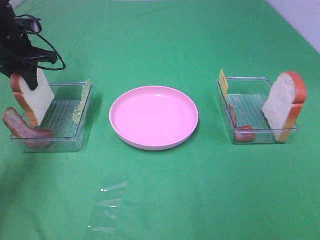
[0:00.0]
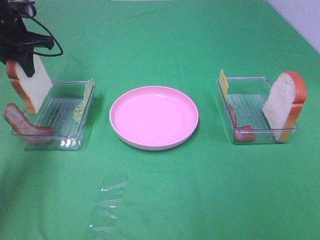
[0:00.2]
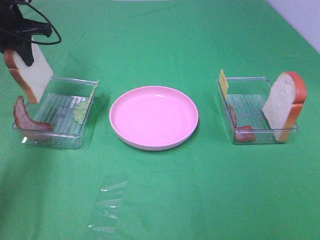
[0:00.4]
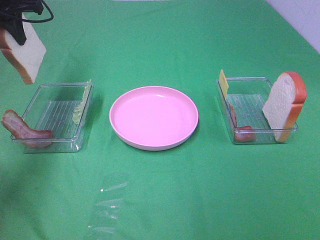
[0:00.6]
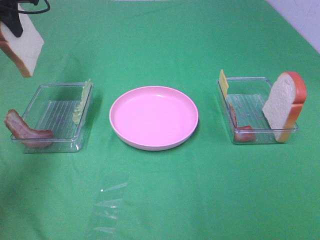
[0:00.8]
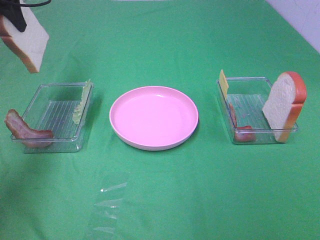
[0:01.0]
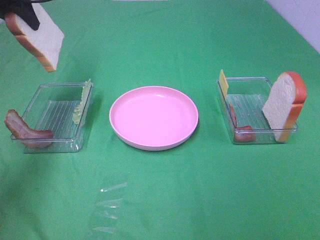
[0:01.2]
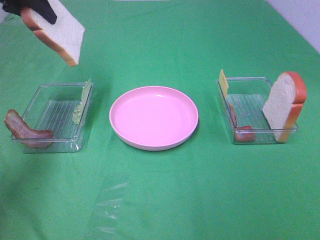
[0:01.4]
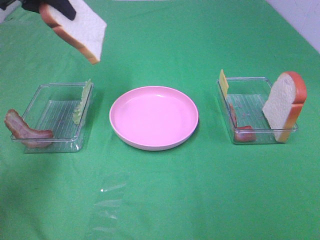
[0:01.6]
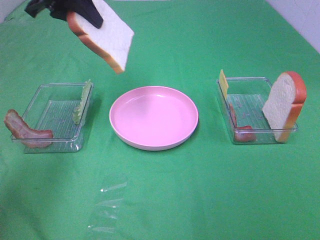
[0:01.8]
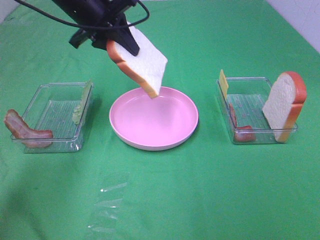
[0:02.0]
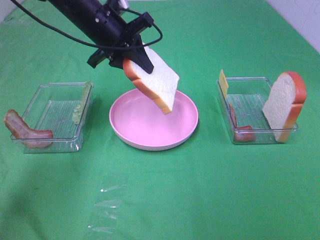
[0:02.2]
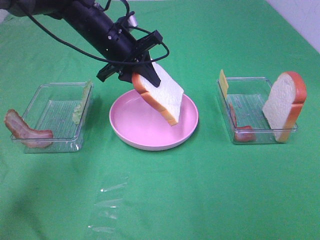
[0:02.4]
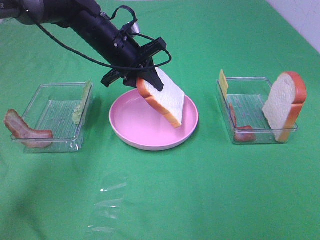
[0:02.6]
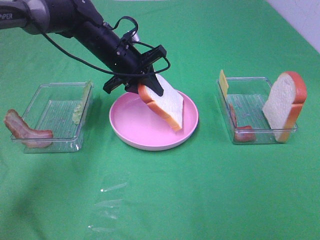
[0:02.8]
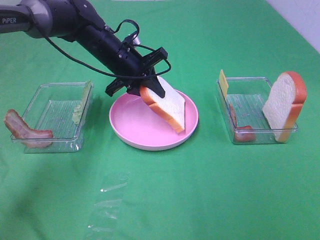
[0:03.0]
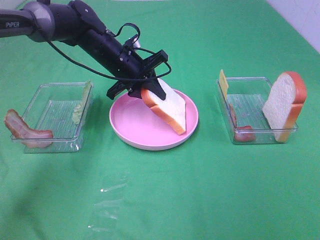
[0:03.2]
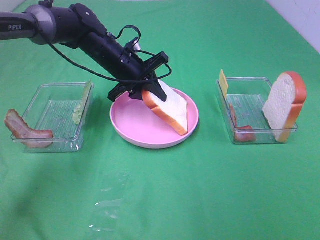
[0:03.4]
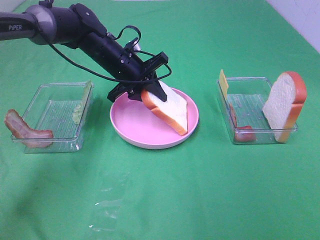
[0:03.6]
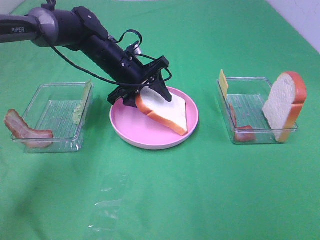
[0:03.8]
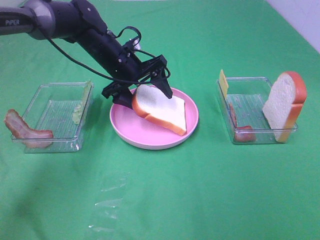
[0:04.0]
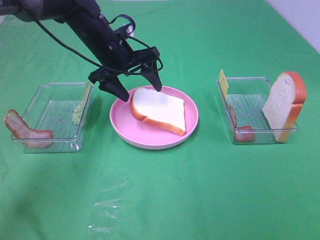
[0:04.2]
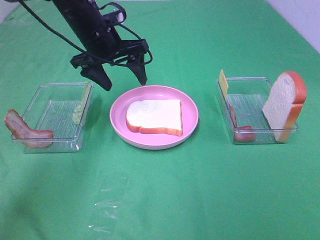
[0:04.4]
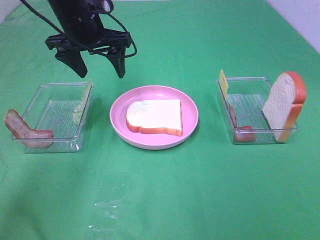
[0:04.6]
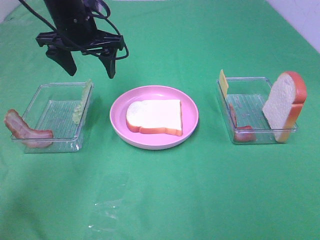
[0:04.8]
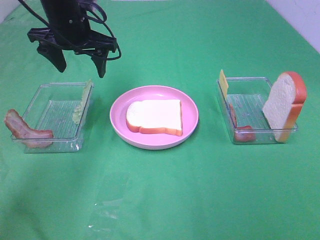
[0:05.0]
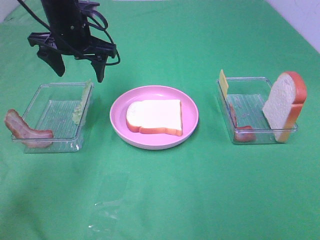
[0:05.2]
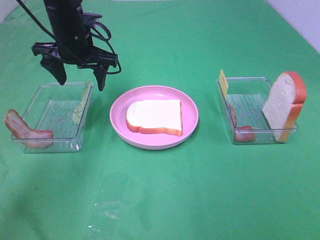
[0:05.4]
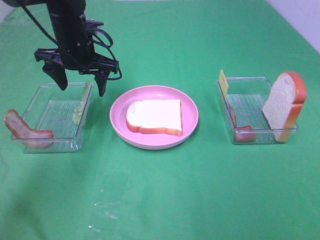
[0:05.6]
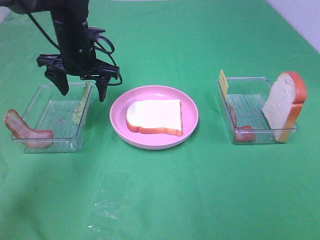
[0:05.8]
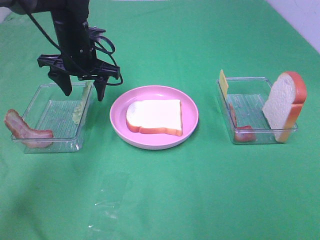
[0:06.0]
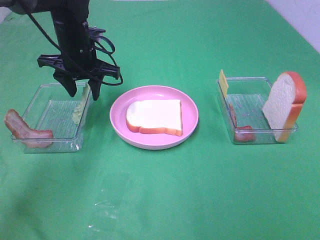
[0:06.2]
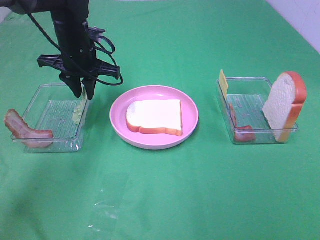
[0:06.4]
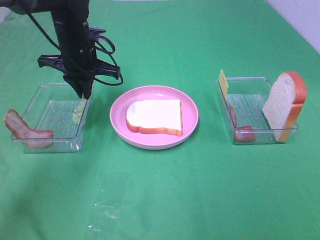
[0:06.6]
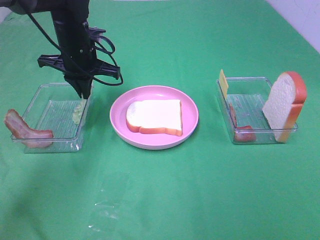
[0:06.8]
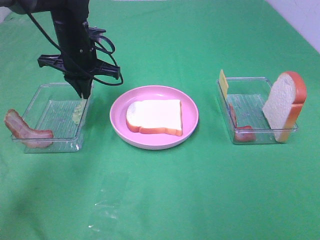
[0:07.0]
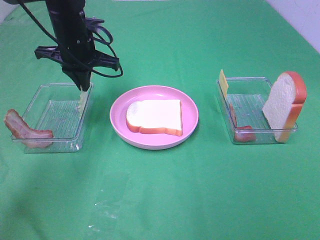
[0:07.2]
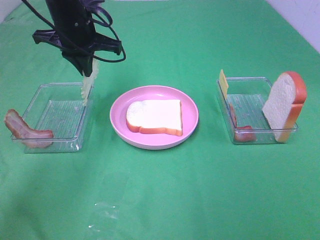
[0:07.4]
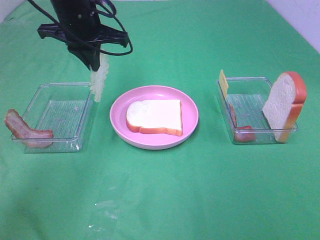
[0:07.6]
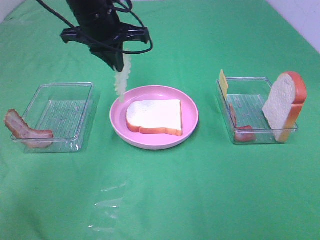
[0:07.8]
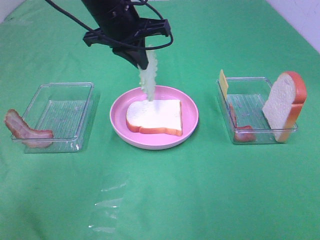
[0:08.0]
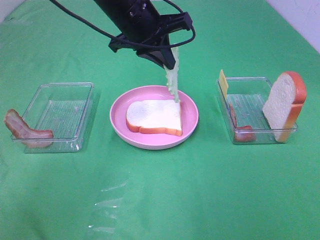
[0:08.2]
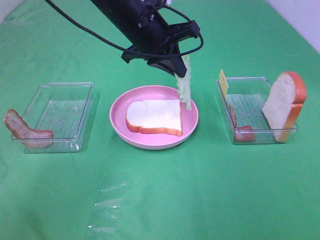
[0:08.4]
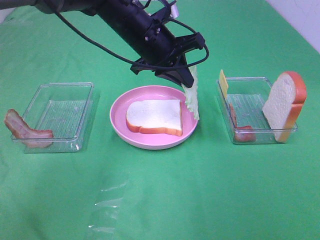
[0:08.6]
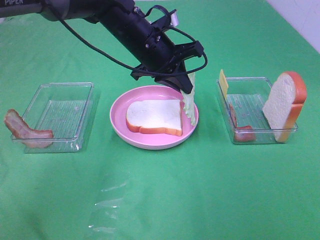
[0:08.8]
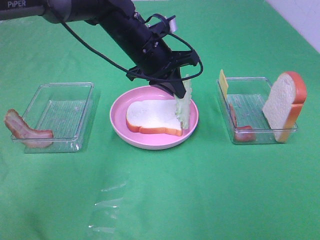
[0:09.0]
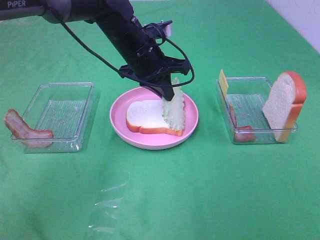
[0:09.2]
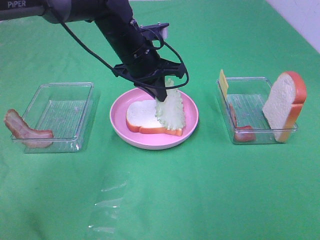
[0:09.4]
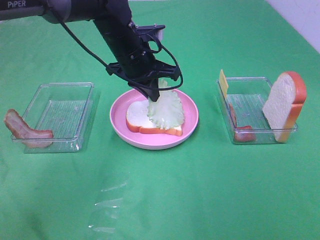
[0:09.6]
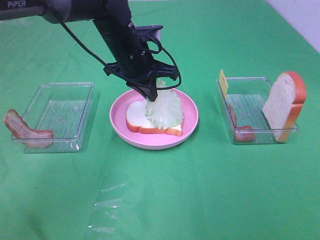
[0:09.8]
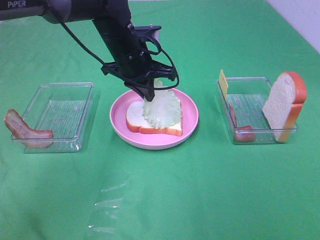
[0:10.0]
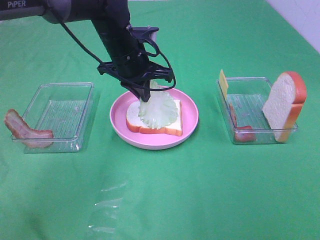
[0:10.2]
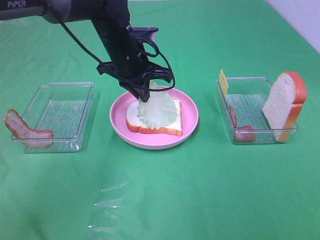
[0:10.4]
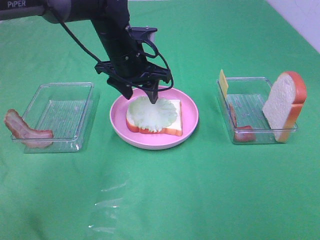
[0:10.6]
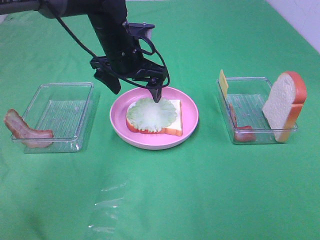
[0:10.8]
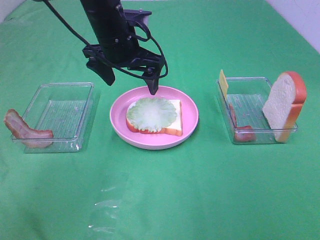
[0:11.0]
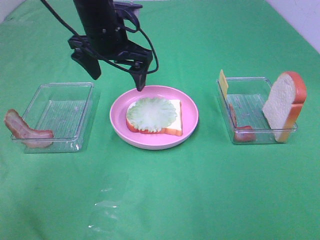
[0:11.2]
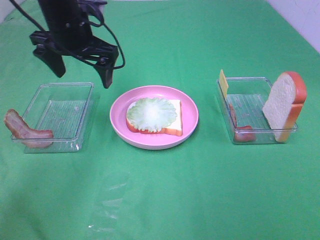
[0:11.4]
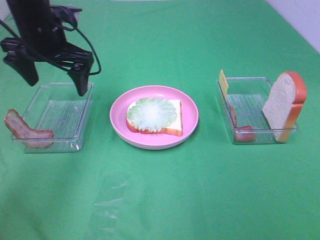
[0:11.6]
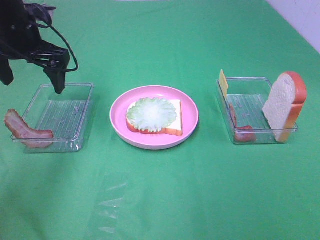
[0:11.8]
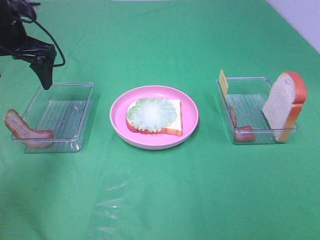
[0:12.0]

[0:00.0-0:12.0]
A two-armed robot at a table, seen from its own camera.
Task of the whole recording: Make sandwiches.
Step, 0:00.0 to 0:04.2: Left hand:place the bread slice on the plate.
Step, 0:04.4 to 0:06.6: Left hand:grab the lettuce slice.
Step, 0:06.8 to 0:10.6: Left hand:place the lettuce slice on the bread slice.
0:00.0 to 0:01.6: The left gripper goes some 15 cm upward and to the right.
0:01.6 to 0:03.0: The left gripper moves downward and to the right, approximately 20 cm.
0:03.0 to 0:04.4: The left gripper goes about 5 cm upward, and opens its fingers.
0:04.4 to 0:06.0: The left gripper changes place by roughly 5 cm.
0:06.0 to 0:07.6: The left gripper heads upward, covering about 5 cm, and closes.
0:07.6 to 0:09.0: The left gripper travels to the right and downward by roughly 10 cm.
0:10.4 to 0:12.0: The left gripper goes some 20 cm to the left, and opens up.

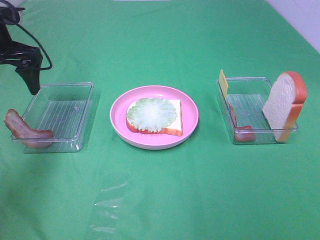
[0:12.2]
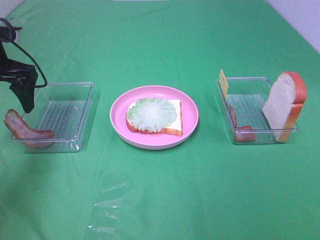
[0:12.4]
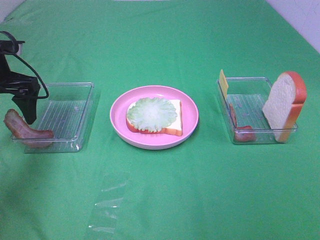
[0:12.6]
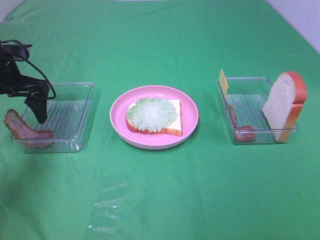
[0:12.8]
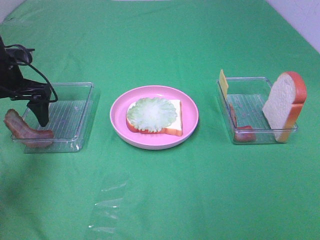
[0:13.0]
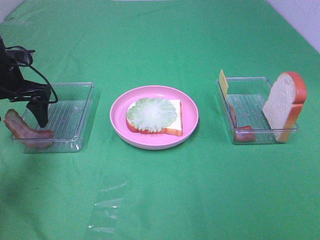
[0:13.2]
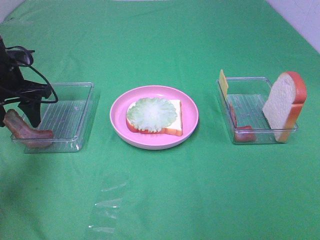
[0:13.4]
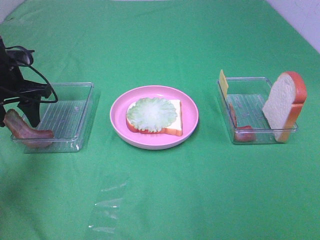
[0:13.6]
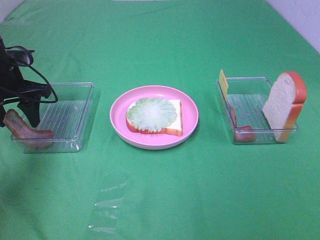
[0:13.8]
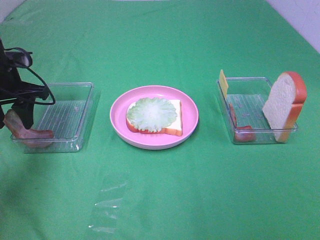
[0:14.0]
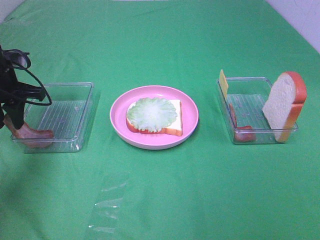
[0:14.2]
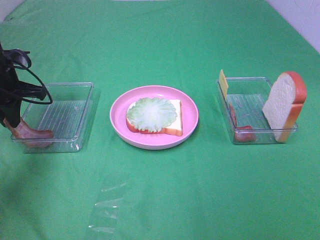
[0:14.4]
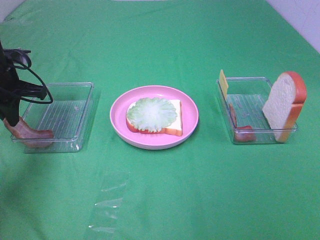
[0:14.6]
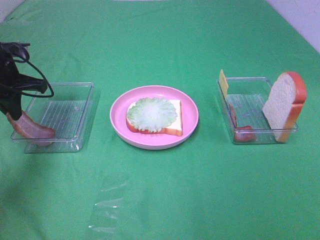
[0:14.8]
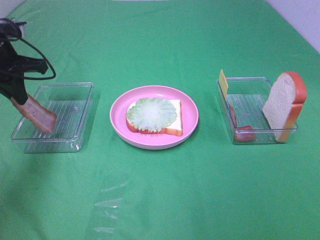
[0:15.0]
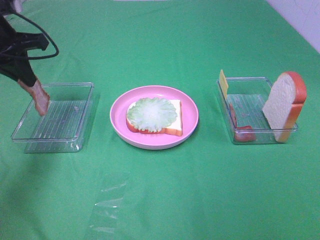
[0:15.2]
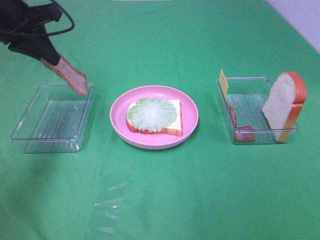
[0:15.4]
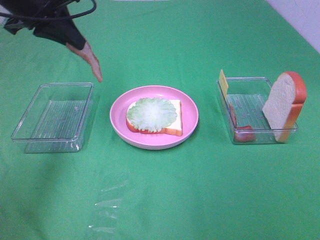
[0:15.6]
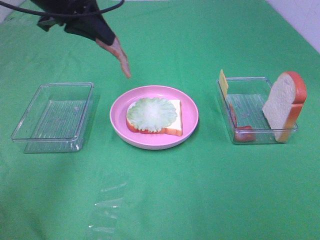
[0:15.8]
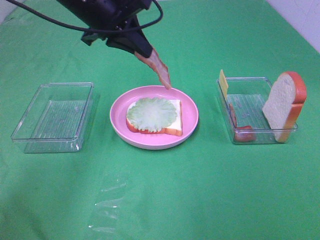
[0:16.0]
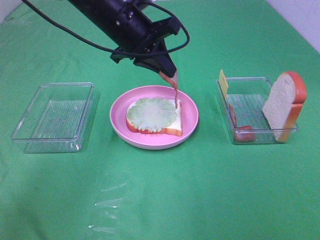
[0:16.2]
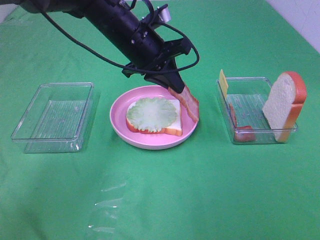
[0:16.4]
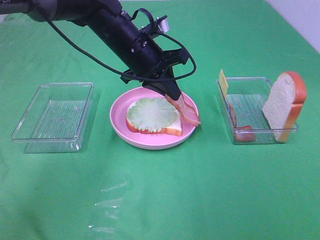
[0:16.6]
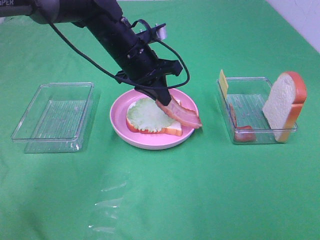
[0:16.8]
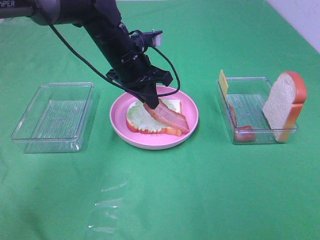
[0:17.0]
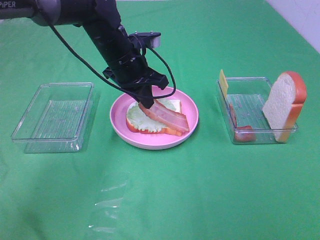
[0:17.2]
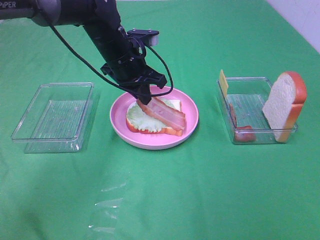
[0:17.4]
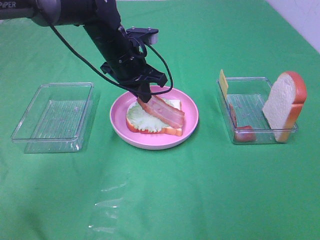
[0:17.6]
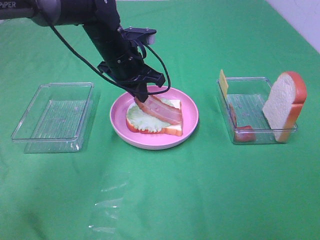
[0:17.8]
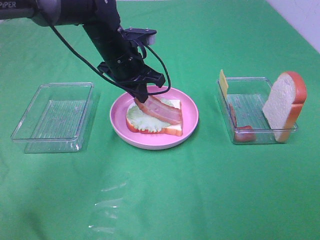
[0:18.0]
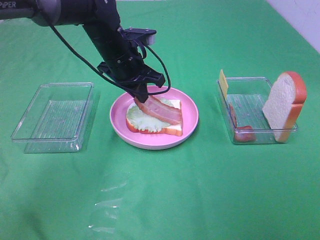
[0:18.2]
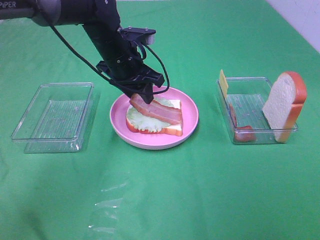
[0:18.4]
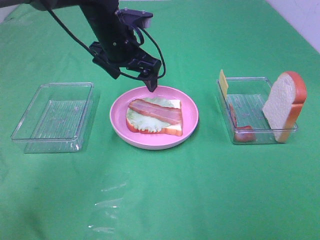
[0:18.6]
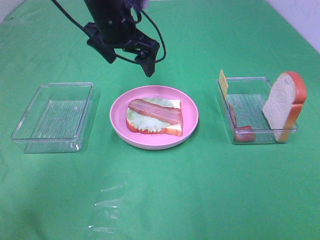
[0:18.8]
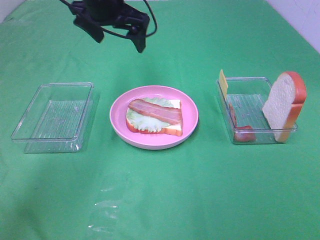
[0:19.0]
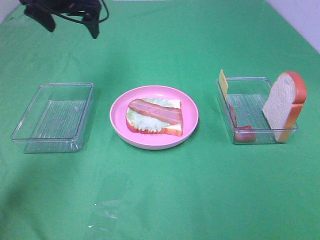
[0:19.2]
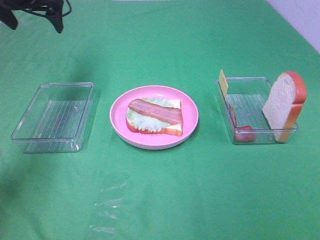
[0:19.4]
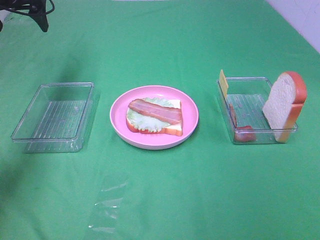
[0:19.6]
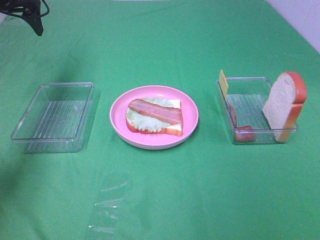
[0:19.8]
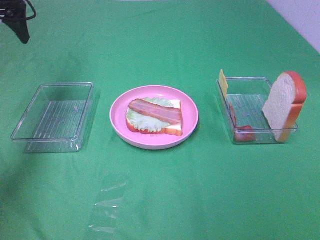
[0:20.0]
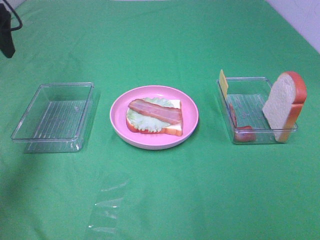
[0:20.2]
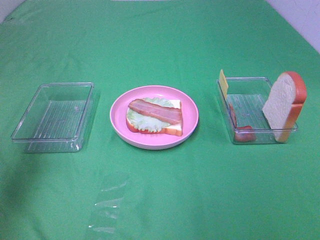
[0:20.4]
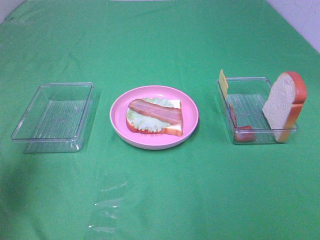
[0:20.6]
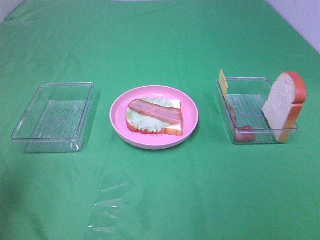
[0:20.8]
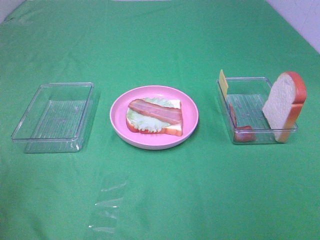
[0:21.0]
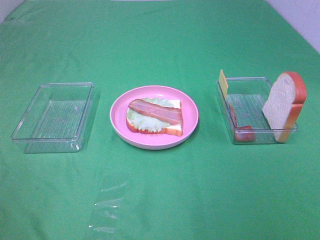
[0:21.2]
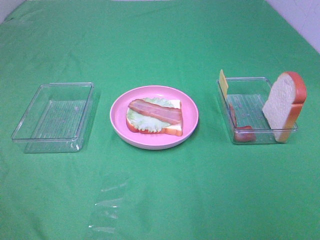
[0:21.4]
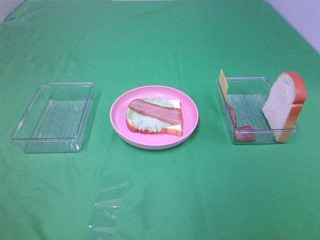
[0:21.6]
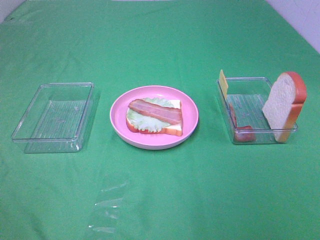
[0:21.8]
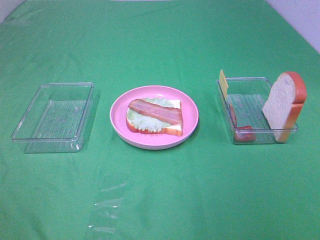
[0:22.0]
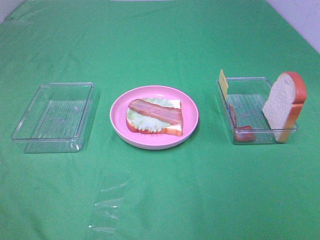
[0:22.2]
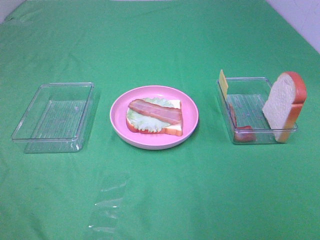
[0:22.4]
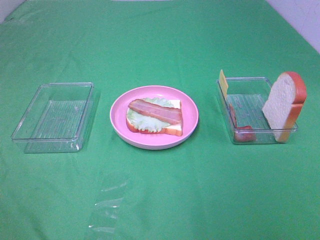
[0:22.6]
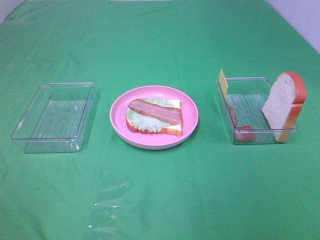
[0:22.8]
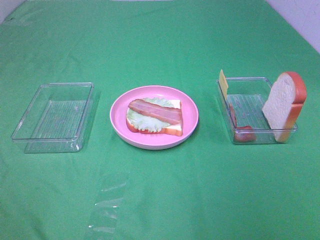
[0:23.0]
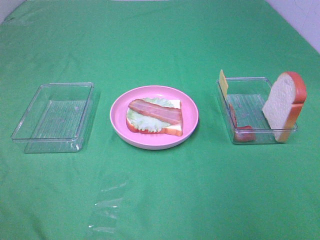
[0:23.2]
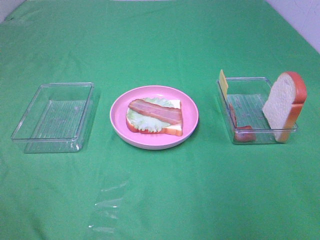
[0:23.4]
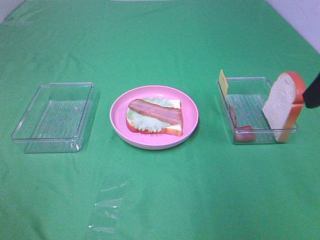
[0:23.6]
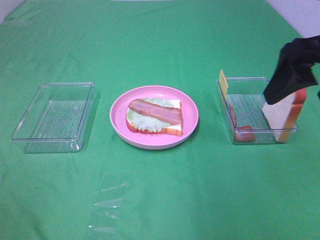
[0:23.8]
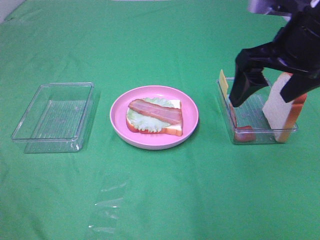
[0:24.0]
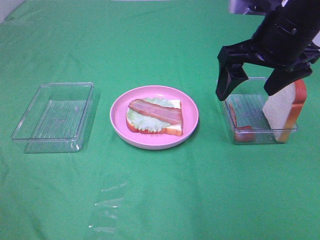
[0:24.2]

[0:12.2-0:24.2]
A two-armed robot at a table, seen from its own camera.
Task of the whole recording: Make sandwiches.
Step, 0:12.2 to 0:14.6: Left hand:grab the bacon.
Step, 0:14.8 to 0:18.4: Left hand:place bacon on lettuce slice.
0:12.2 to 0:13.8: The left gripper is displaced downward by roughly 5 cm, and closes up.
0:13.8 to 0:15.2: The left gripper travels upward by about 10 cm, and closes up.
0:15.2 to 0:16.6: The left gripper shifts some 20 cm to the right.
0:18.2 to 0:19.8: The left gripper is displaced to the left and upward by approximately 25 cm, and opens its fingers.
0:19.8 to 0:21.2: The left gripper travels backward by about 50 cm.
0:22.6 to 0:24.2: The right gripper goes about 30 cm forward.
